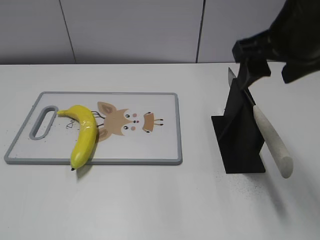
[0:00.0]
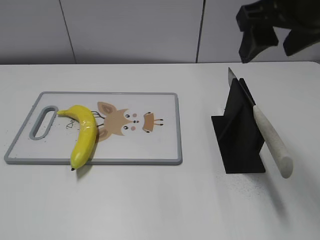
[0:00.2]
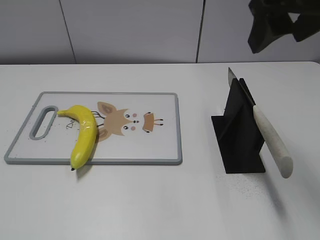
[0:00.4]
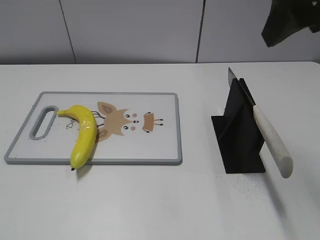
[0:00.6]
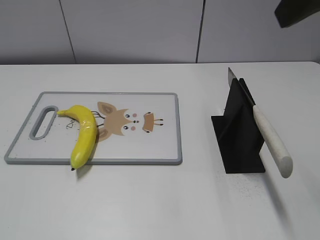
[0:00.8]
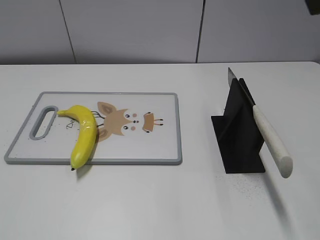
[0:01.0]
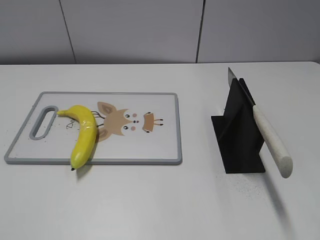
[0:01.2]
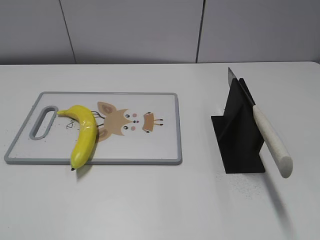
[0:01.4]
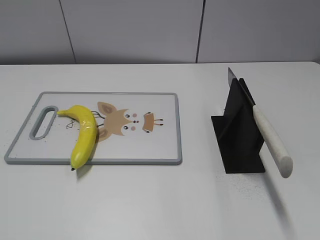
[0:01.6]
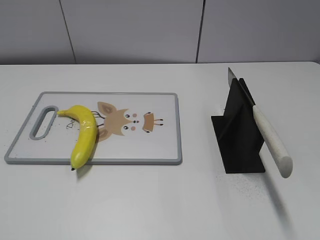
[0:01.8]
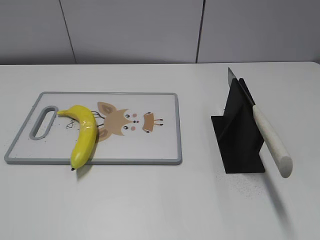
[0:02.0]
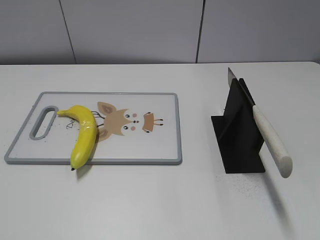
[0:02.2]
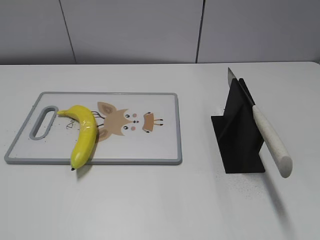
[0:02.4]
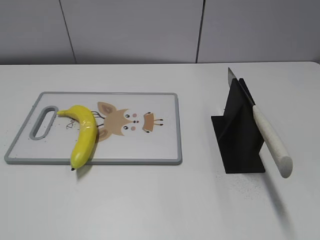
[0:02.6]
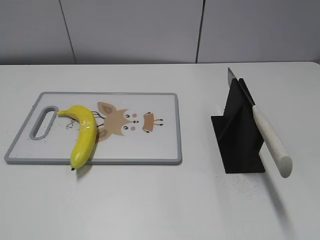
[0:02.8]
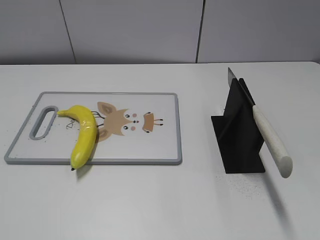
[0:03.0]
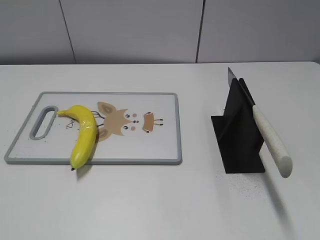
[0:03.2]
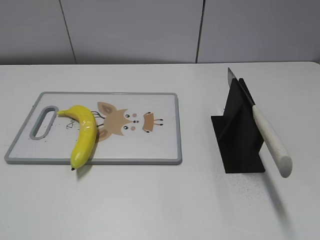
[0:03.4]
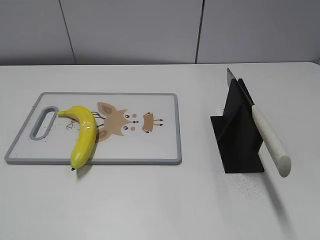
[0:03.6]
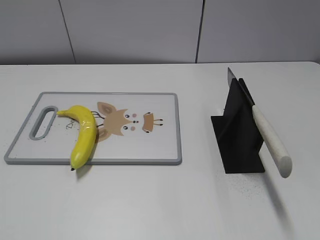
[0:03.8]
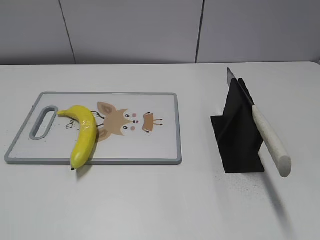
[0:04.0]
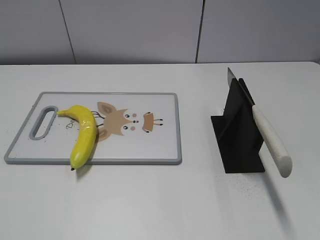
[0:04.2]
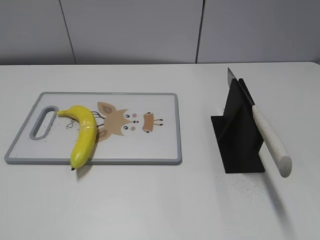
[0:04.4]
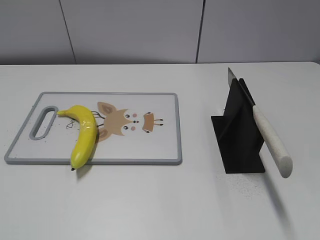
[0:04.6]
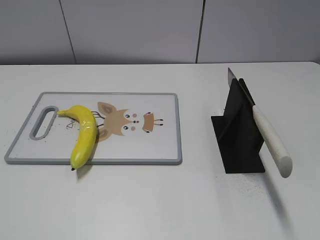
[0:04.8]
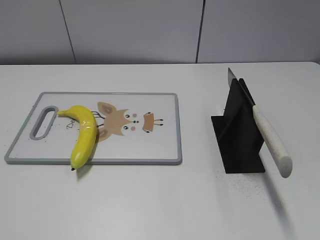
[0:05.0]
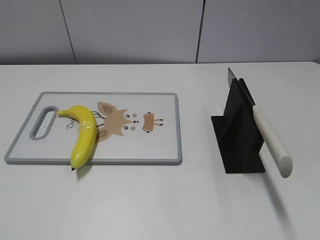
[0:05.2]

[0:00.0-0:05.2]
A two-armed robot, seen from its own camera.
Task of the whole recording: cut plastic banana.
Step, 0:00.0 to 0:05.0: Lift the knife with your right hand.
0:00.0 to 0:01.8: The right gripper travels backward and to the right by roughly 20 cm.

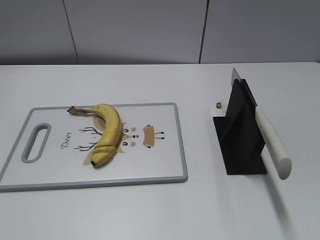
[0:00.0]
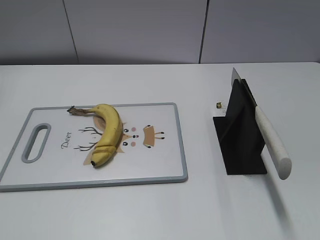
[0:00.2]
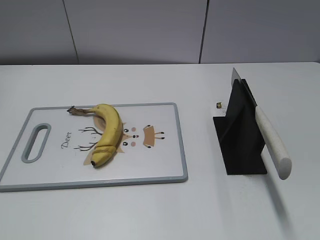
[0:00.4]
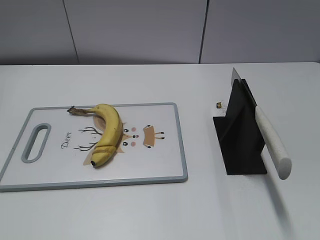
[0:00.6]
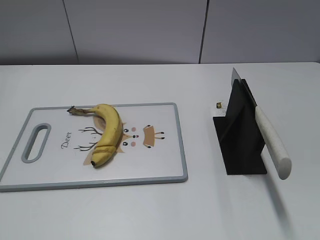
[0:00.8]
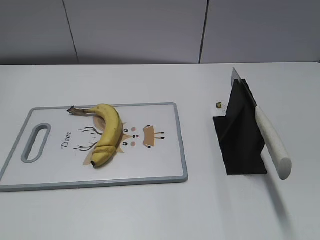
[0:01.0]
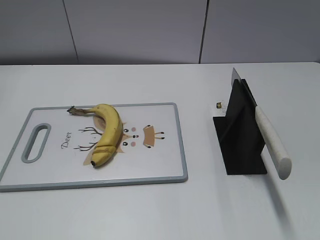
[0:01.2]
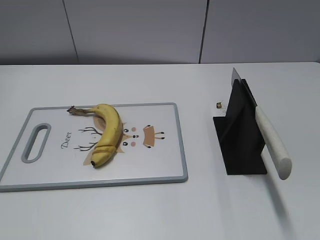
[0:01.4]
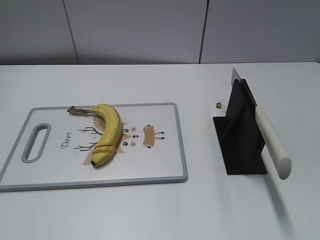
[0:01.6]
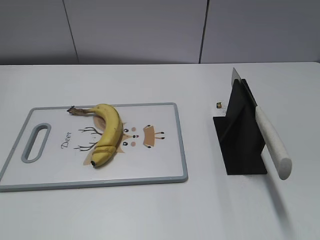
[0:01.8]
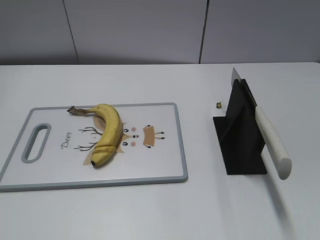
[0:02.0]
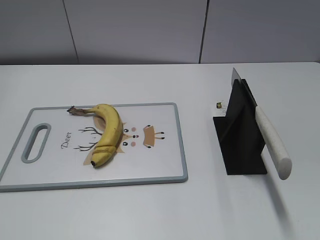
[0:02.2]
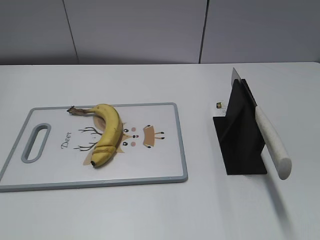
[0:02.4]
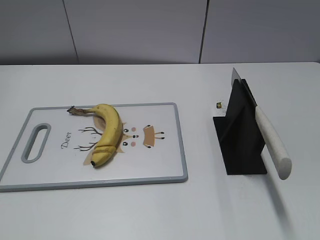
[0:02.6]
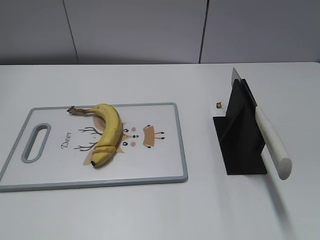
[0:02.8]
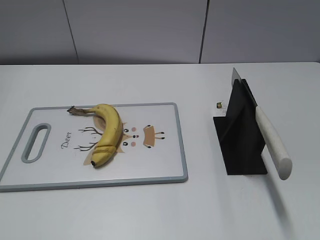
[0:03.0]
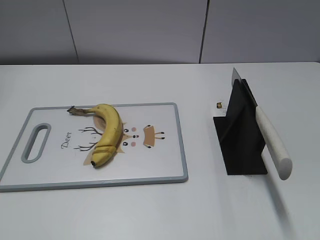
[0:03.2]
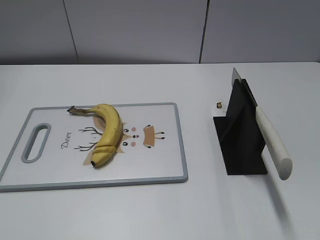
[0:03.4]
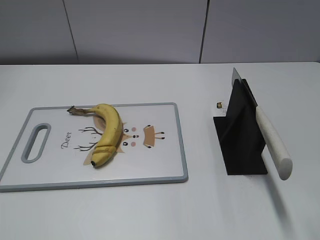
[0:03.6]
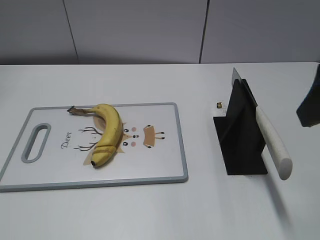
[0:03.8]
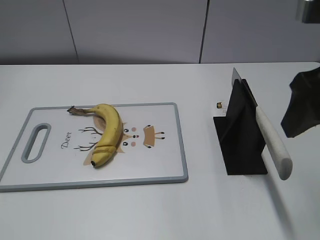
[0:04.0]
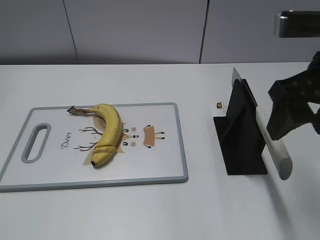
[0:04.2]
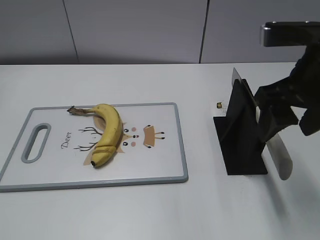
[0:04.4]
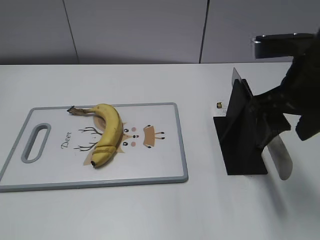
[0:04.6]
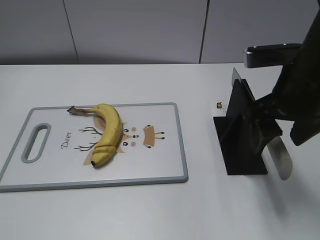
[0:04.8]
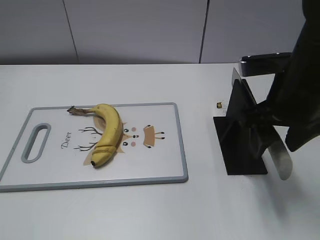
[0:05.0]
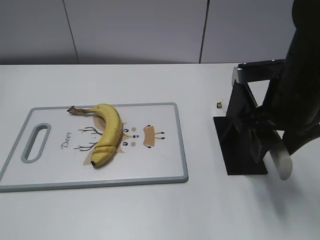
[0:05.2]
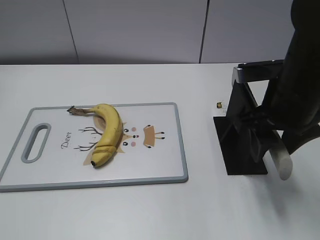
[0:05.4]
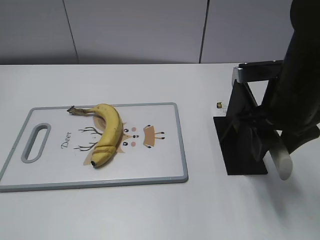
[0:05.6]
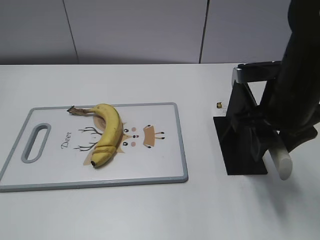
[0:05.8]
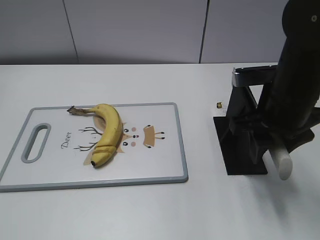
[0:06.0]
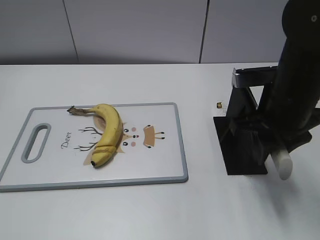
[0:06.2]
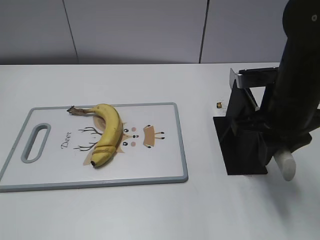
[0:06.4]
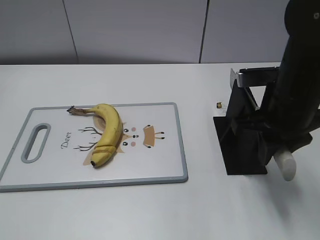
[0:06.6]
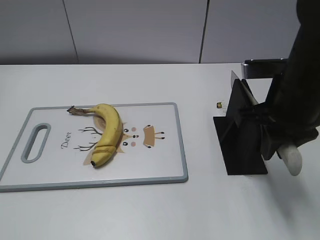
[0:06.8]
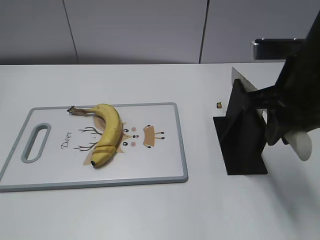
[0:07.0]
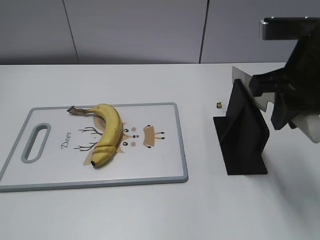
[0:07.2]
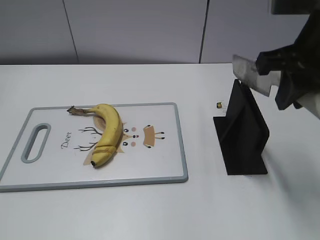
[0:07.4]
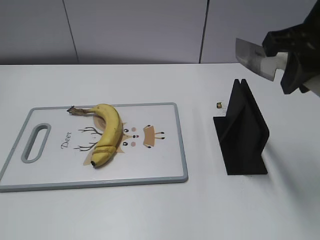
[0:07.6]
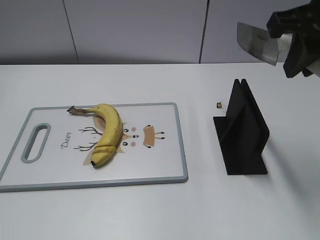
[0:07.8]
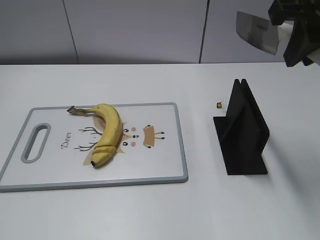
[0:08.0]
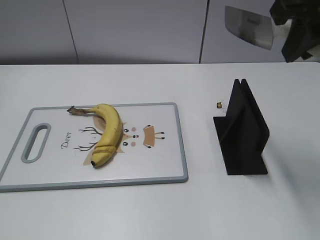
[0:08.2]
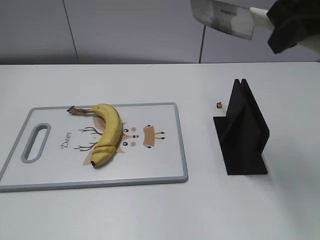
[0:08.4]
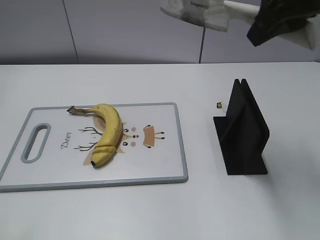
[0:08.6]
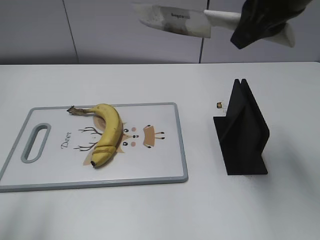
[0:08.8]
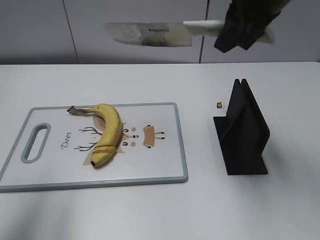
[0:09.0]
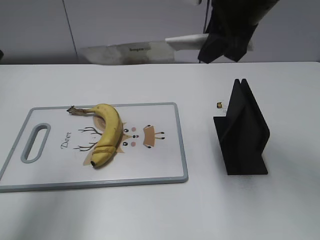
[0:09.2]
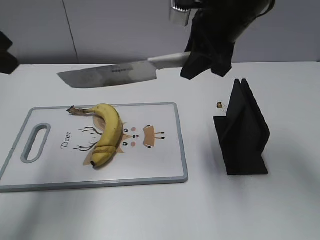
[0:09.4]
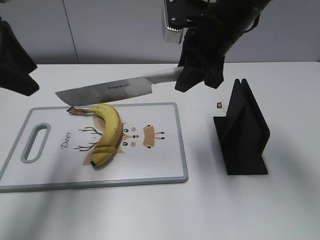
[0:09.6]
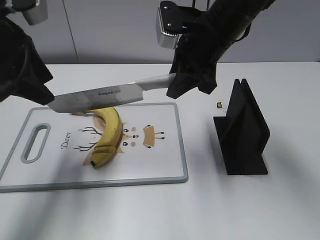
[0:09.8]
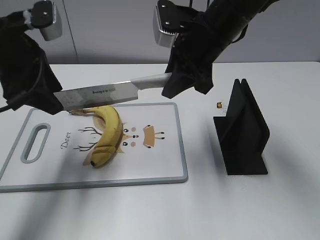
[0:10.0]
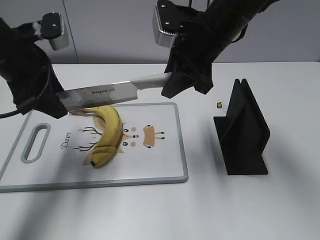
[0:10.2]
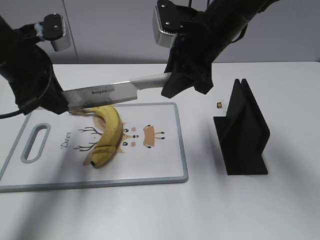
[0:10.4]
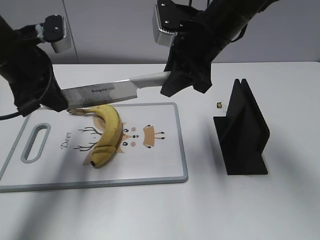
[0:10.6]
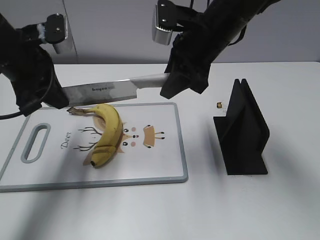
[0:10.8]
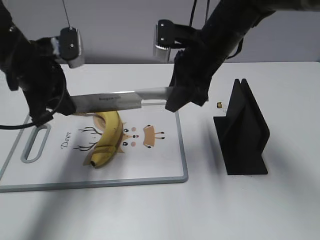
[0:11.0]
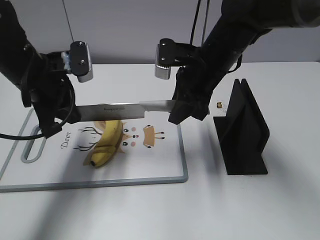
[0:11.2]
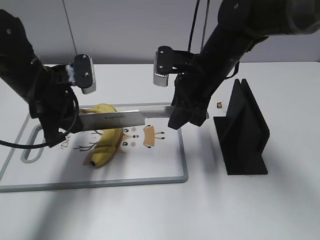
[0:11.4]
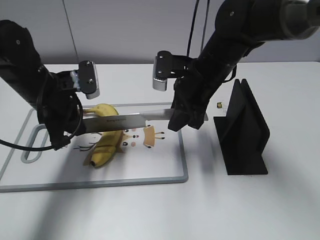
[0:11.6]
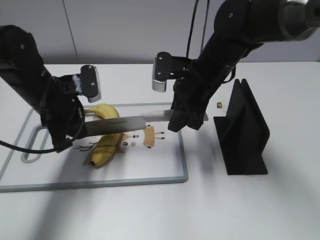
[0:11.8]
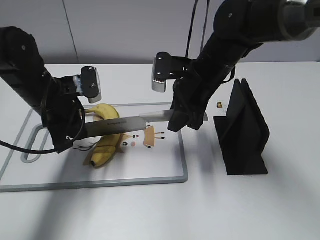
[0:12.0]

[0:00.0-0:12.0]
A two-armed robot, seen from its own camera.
Task of the whole recording: cut banana.
Step, 0:00.0 to 0:08.0: Grab the knife handle with your right hand.
0:03.0 to 0:04.4: The right gripper shifts some 15 cm forward and to the left.
0:04.4 to 0:06.0: The right gripper shifts some 5 cm downward, and closes its fingers.
0:06.0 to 0:07.6: The right gripper shifts approximately 10 cm upward, and closes its fingers.
0:07.6 to 0:09.0: The right gripper travels forward by roughly 5 cm. The left gripper is displaced forward and upward by about 20 cm.
0:09.0 to 0:10.4: The right gripper is displaced downward and to the left by about 10 cm. The left gripper goes some 20 cm forward, downward and to the right, and closes up.
0:10.4 to 0:12.0: The grippers both shift downward by about 10 cm. The left gripper closes its fingers.

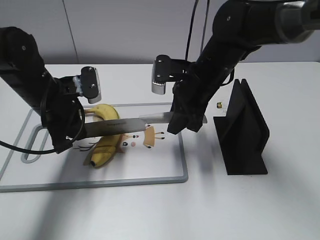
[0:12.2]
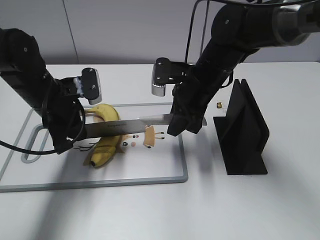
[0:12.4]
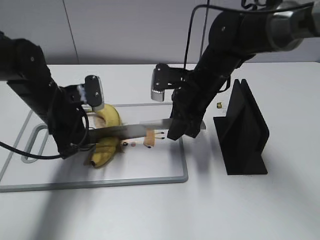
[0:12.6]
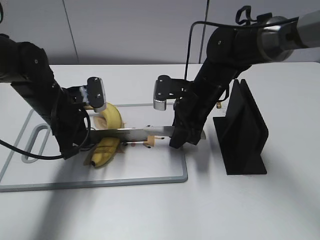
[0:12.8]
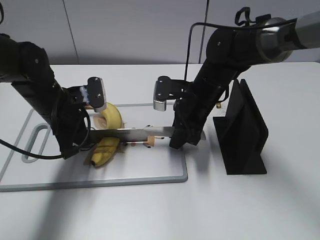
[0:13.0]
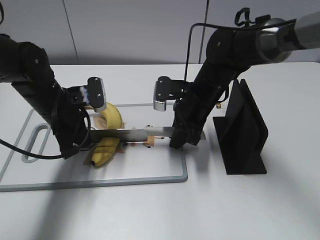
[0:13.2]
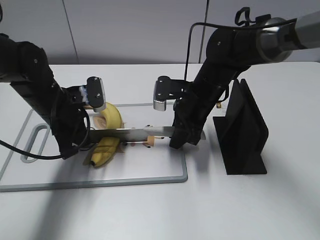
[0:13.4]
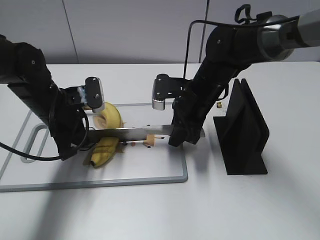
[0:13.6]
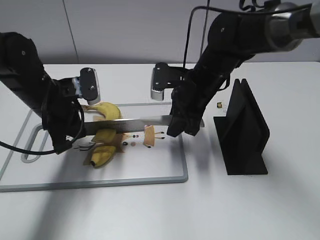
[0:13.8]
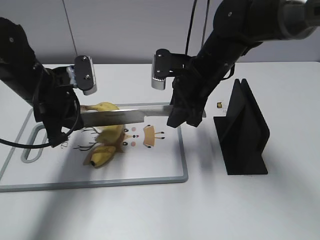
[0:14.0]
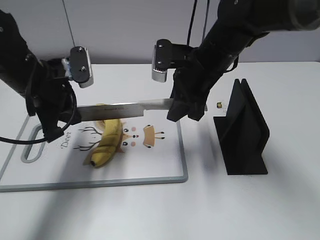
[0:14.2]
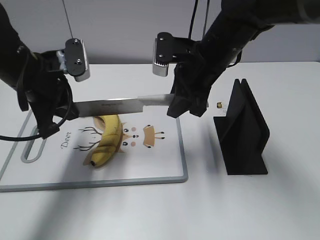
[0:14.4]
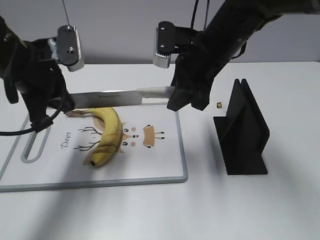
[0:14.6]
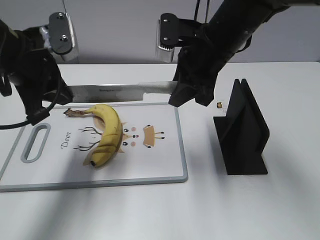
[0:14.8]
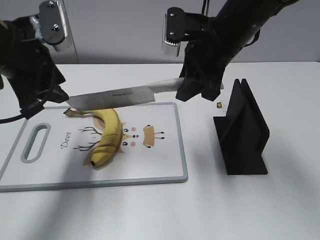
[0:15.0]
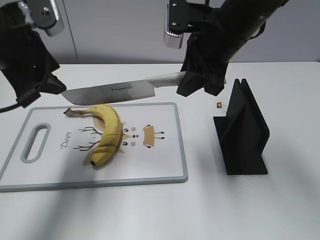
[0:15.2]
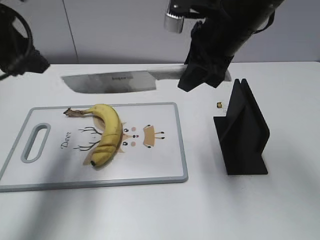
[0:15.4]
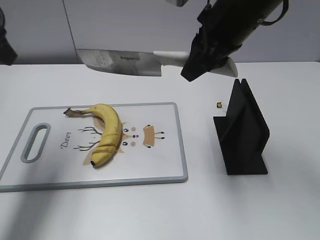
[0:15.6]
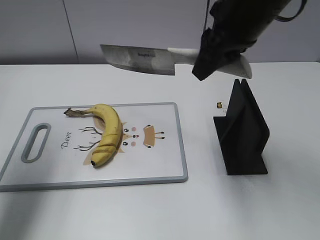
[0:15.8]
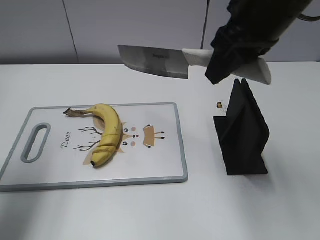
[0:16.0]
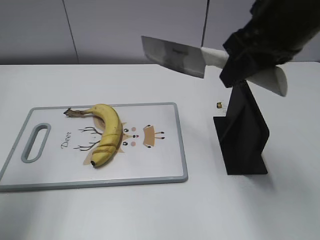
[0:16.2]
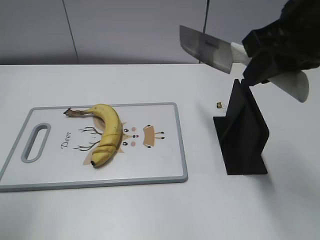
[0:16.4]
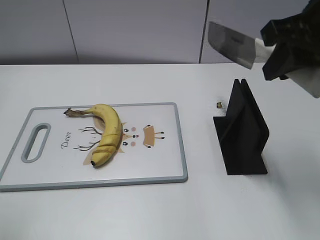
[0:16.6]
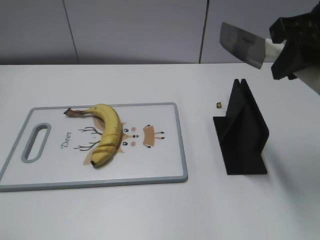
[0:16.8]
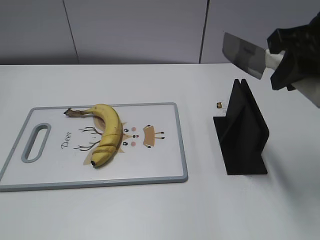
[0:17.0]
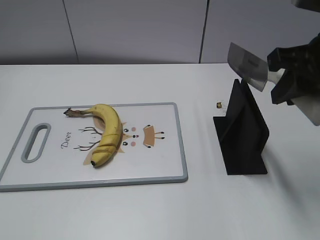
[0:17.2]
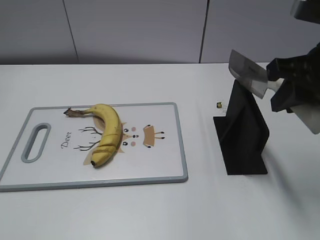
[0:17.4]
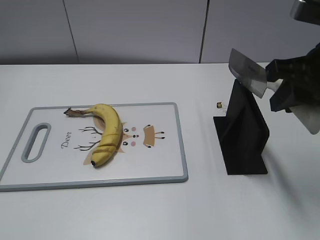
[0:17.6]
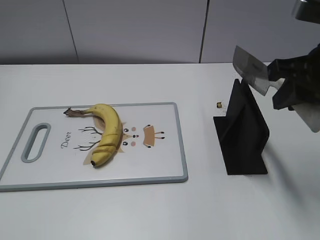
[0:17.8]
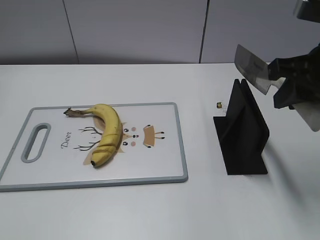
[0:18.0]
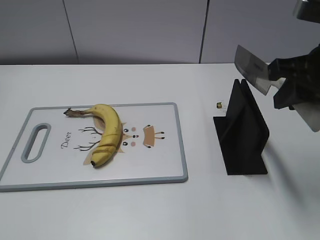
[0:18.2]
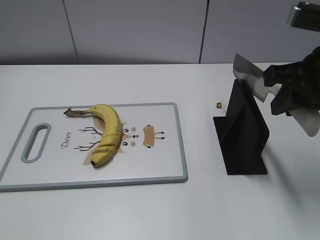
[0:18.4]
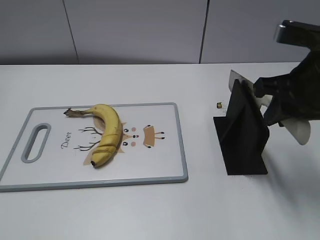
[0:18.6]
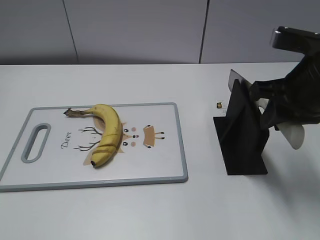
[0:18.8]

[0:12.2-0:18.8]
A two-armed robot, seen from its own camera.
Task of the whole recording: cut banana.
Step, 0:13.4 to 0:16.6: Cut the banana with your right hand.
Step, 0:16.8 to 0:18.0: Lift the knife with your right hand.
0:12.2 to 0:13.8: There are only small adjustments of the grippers.
0:13.8 to 0:15.4: The grippers both shift upward by approximately 15 cm. The left gripper opens.
0:15.4 to 0:17.2: The right gripper travels to the right and backward by approximately 15 cm, while the left gripper travels backward by some 30 cm.
0:17.2 to 0:18.8: The right gripper travels downward by roughly 5 cm.
